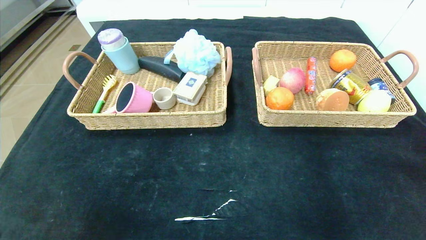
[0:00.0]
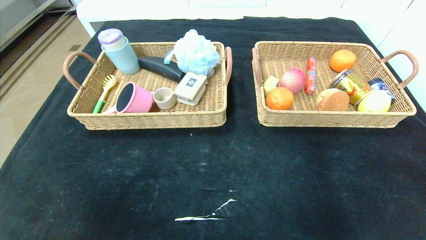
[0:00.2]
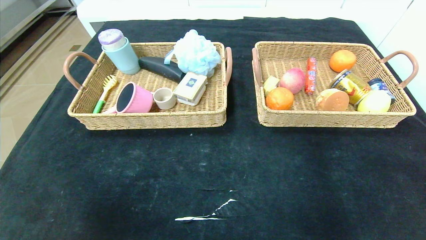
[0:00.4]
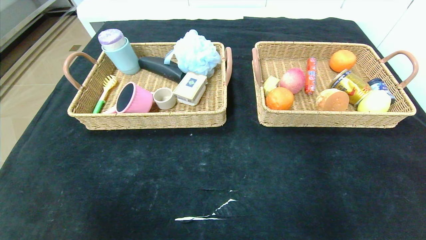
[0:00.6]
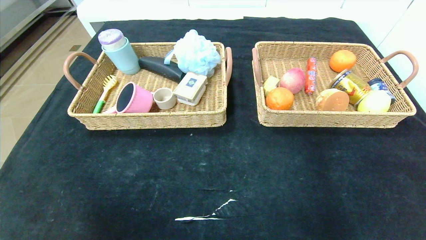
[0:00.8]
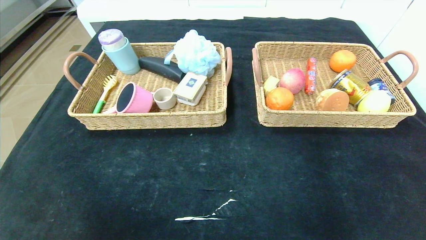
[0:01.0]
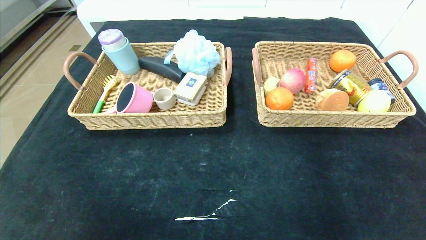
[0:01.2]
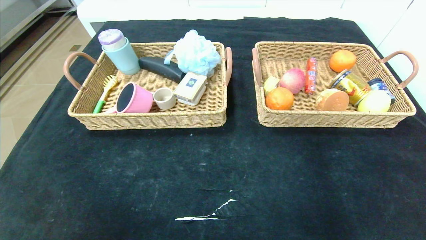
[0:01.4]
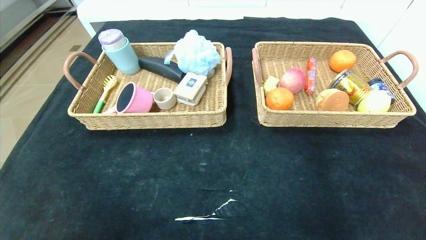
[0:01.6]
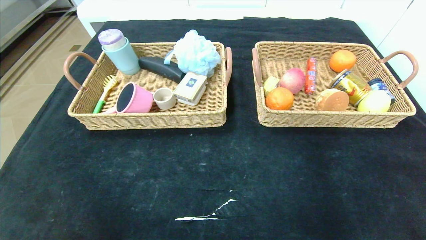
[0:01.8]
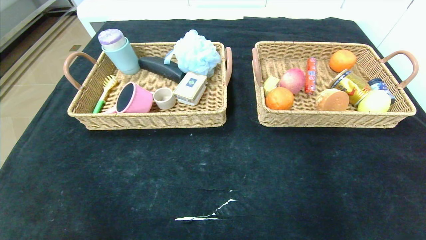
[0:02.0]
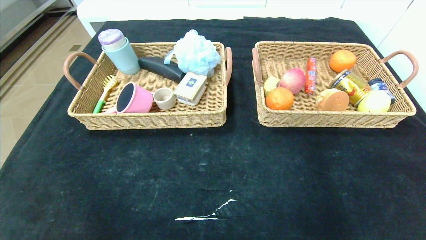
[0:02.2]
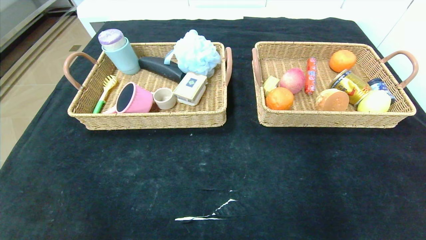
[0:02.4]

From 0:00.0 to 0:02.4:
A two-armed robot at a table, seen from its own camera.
From 0:00.0 to 0:01.2: The left gripper moves backward and downward, about 15 cm.
